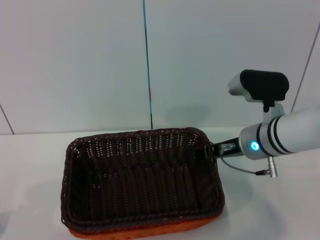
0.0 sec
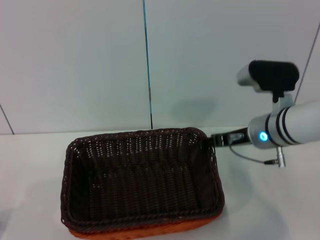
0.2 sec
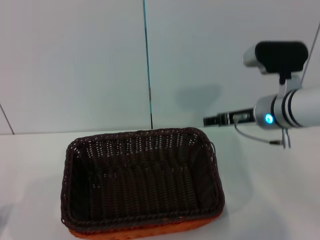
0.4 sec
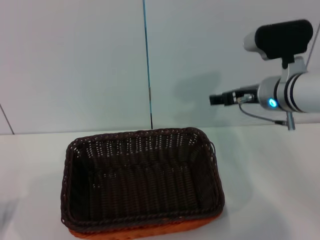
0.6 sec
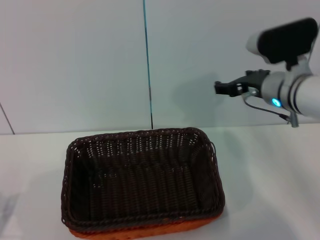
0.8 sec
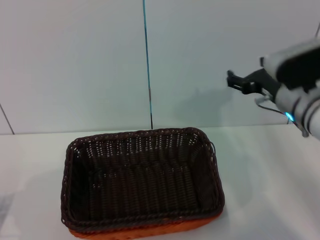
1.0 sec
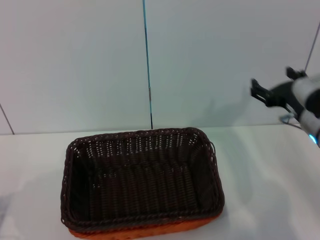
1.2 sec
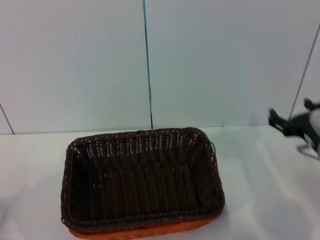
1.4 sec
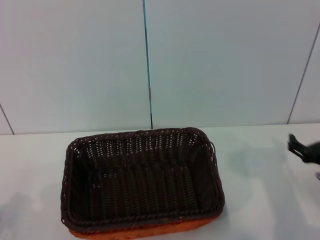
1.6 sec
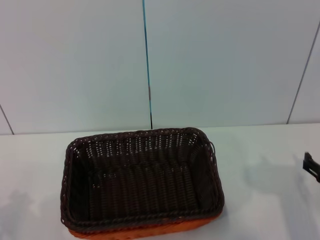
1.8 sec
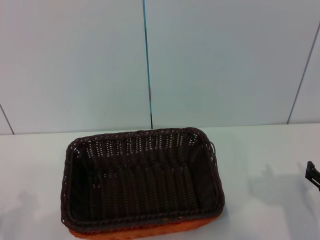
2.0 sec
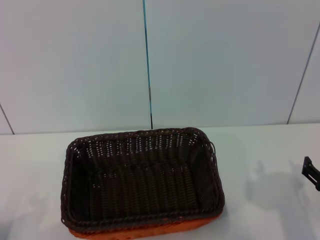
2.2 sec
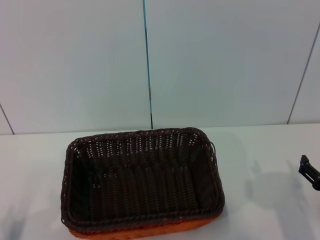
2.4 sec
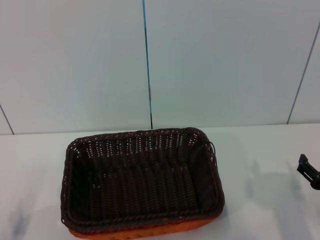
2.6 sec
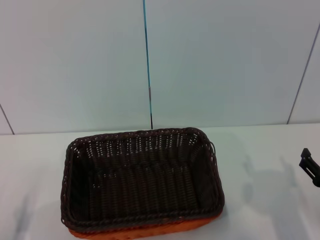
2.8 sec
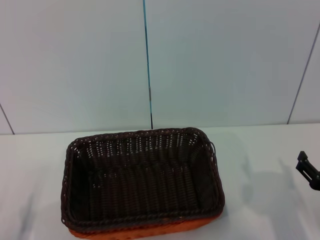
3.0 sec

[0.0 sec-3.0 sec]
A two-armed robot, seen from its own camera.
0.0 sec to 1.6 sec: The right gripper heads to the right, backward and downward, covering some 15 cm, and opens.
1.6 sec to 3.0 sec: The right gripper shifts some 5 cm backward.
